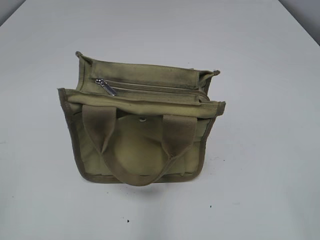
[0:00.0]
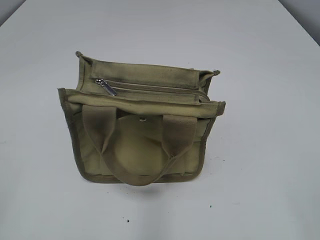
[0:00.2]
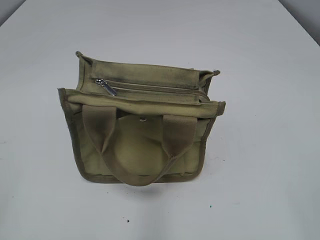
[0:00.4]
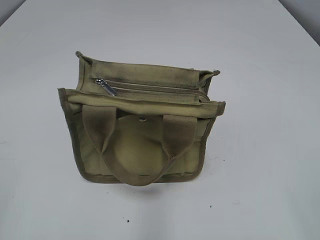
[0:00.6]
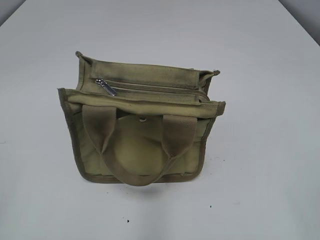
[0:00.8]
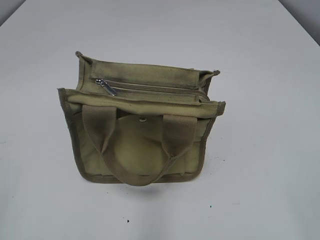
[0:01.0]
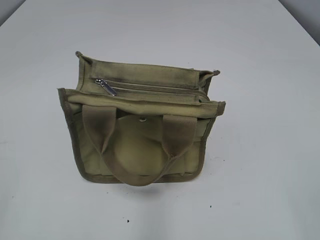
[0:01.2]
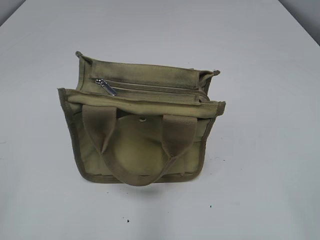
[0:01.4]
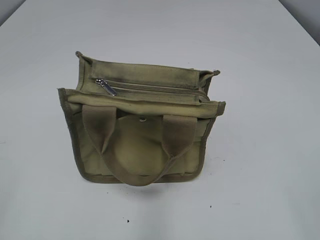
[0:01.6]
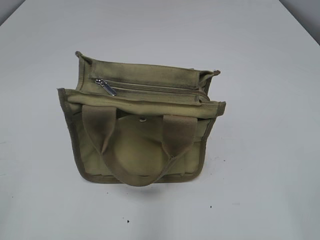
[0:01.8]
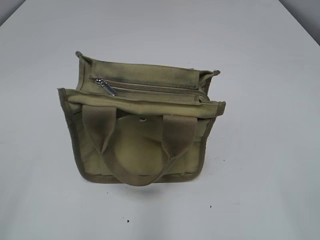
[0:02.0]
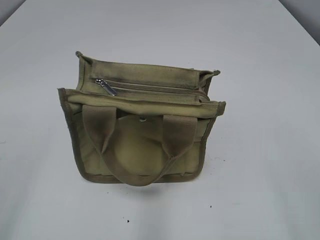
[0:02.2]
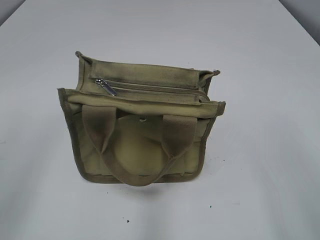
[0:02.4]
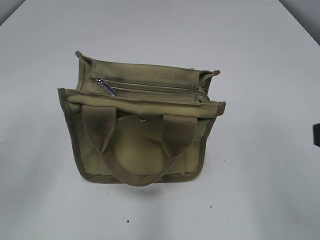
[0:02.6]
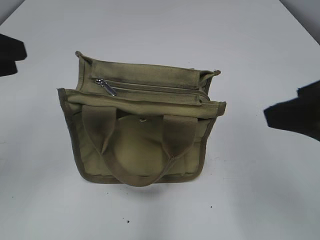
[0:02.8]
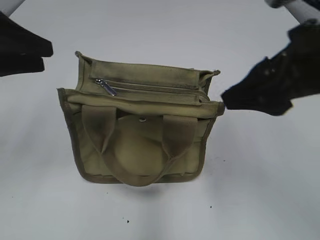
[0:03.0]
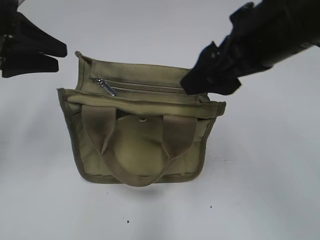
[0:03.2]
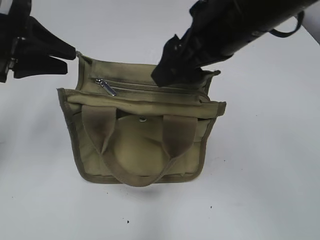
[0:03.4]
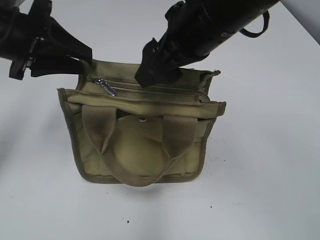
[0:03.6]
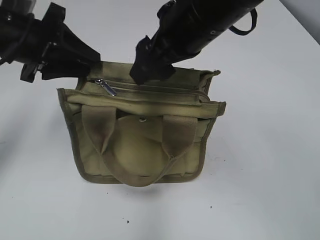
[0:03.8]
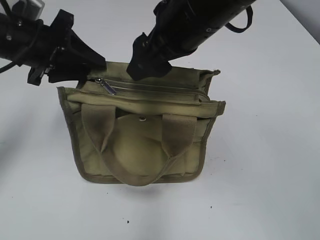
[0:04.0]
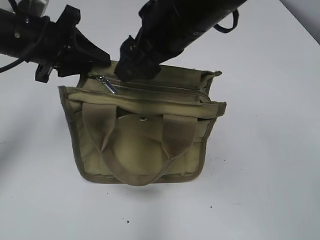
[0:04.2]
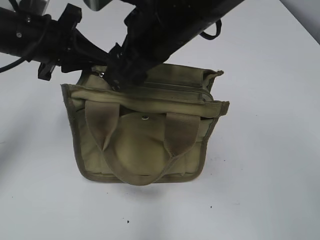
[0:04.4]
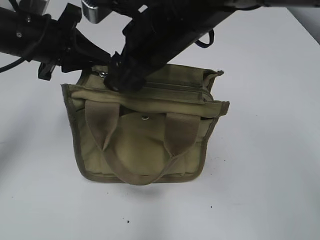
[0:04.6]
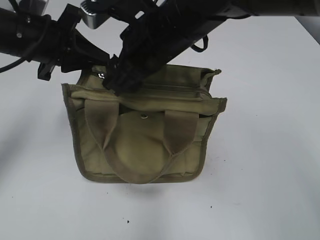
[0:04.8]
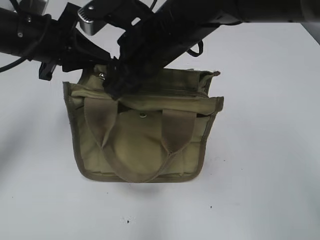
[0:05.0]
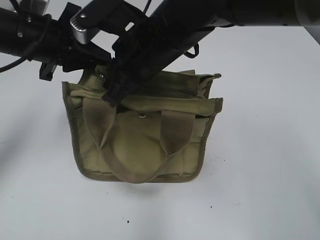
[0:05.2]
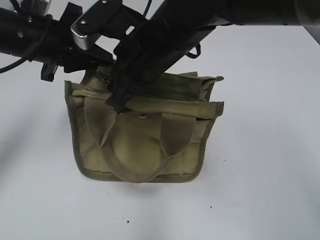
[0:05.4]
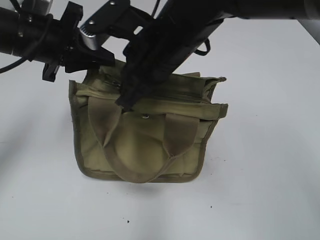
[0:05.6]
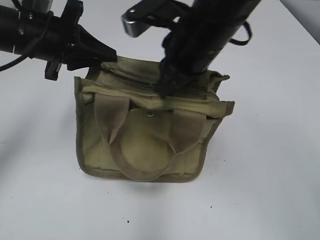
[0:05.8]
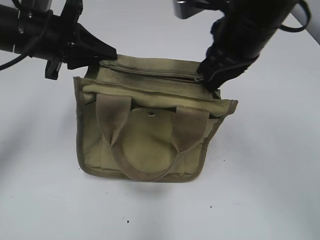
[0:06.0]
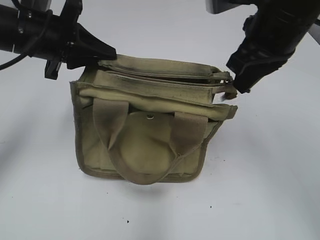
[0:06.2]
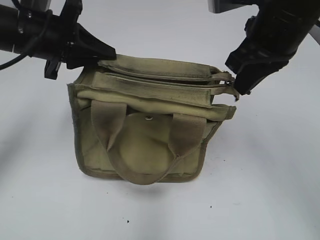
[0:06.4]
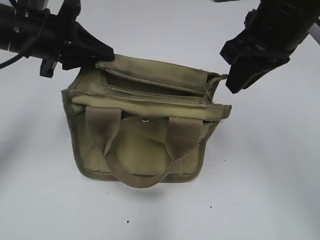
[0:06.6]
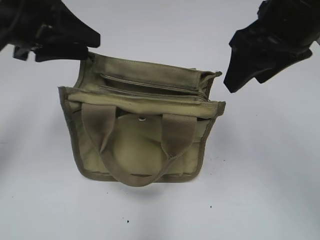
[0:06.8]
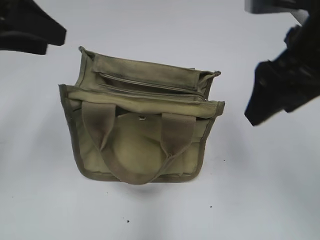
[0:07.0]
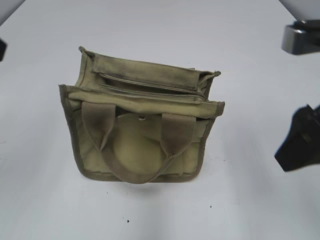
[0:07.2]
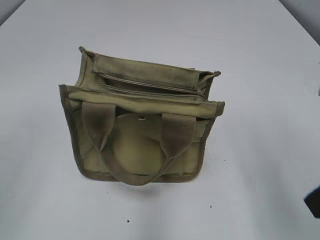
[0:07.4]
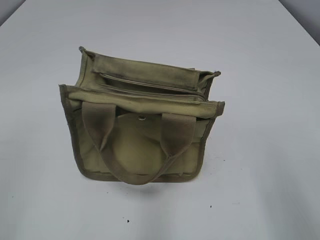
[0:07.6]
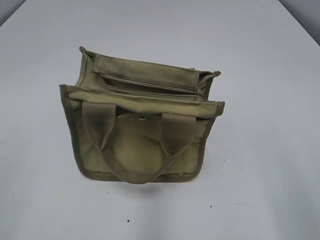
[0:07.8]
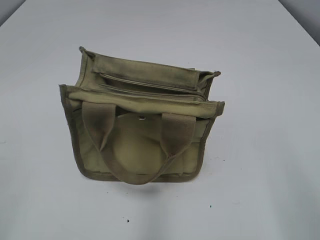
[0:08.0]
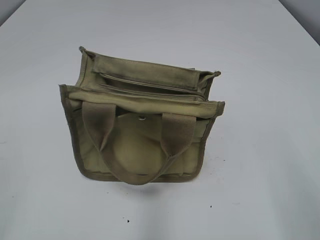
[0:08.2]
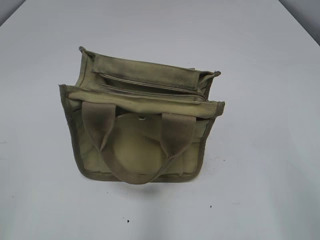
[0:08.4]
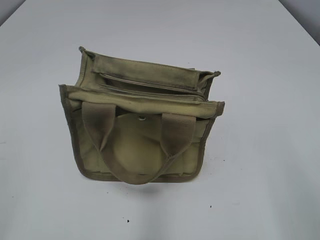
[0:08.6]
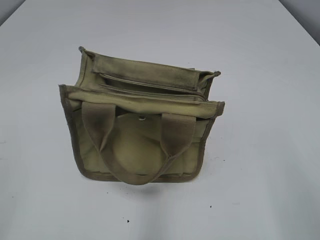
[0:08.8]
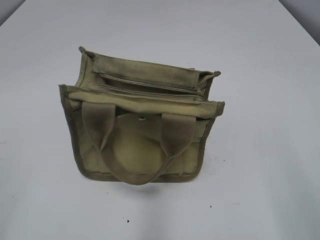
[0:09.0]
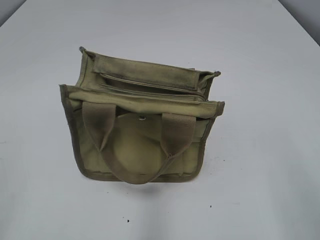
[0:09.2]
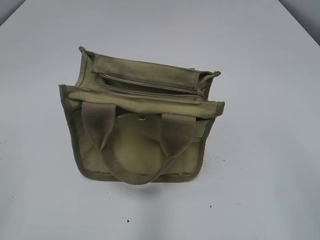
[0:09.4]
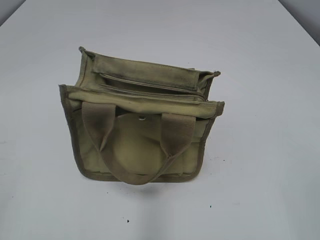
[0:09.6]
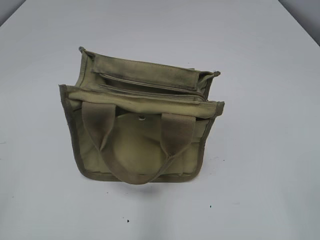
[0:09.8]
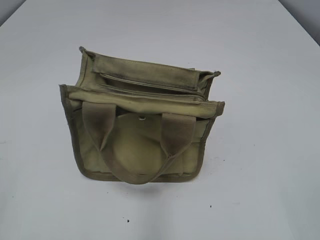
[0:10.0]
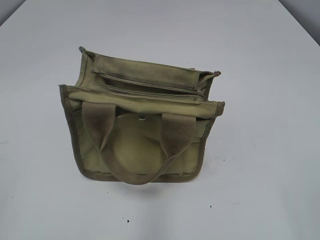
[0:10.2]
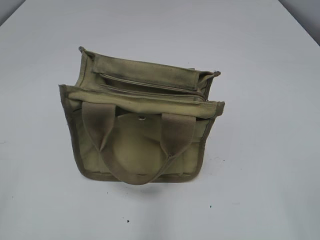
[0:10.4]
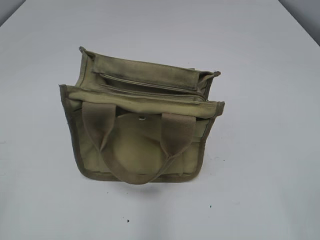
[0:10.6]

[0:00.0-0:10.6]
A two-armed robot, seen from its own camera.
Step, 0:00.0 to 0:06.4: Pull open the zipper with your right hand.
0:01.6 to 0:03.0: The right gripper heads forward and to the left, covering about 25 cm. The left gripper is displaced forward by roughly 25 cm.
0:03.0 to 0:04.6: The left gripper goes approximately 10 cm forward and to the right, and closes its fingers; the right gripper shifts approximately 20 cm to the left and forward.
0:04.6 to 0:06.0: The right gripper goes approximately 10 cm to the right, and closes.
0:06.0 to 0:07.6: The left gripper shifts some 25 cm backward and to the left, and opens up, while the right gripper goes some 25 cm backward and to the right, and opens its fingers.

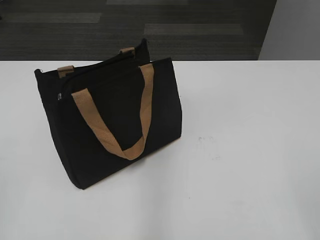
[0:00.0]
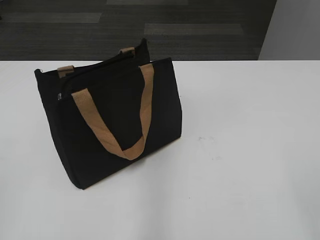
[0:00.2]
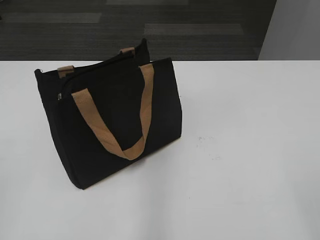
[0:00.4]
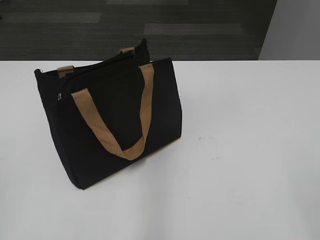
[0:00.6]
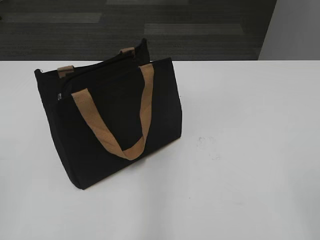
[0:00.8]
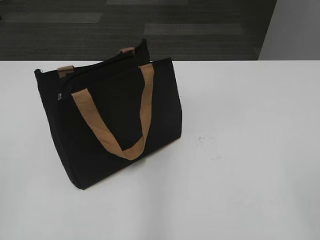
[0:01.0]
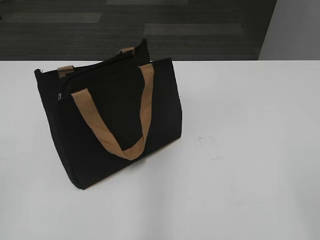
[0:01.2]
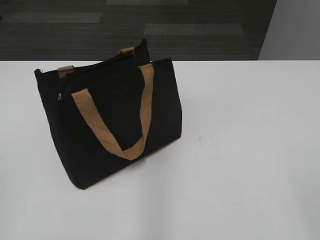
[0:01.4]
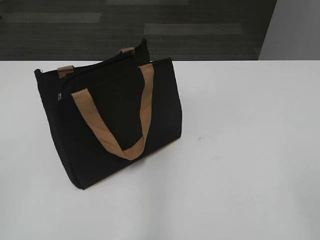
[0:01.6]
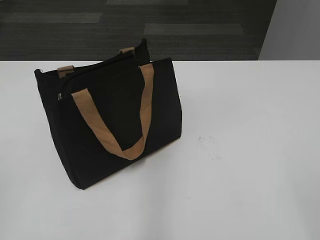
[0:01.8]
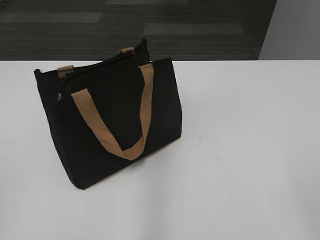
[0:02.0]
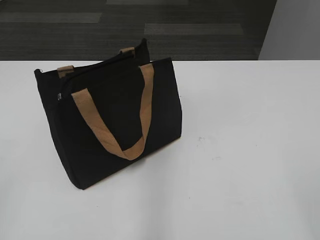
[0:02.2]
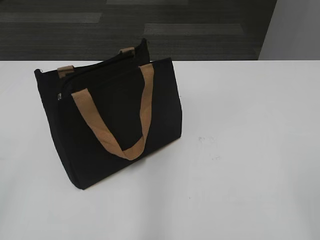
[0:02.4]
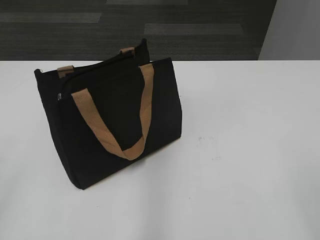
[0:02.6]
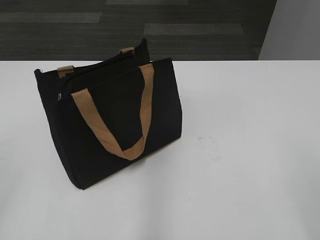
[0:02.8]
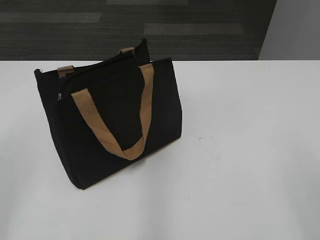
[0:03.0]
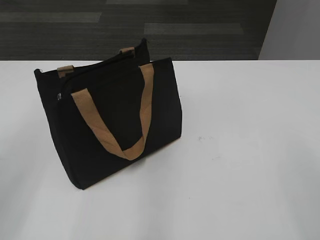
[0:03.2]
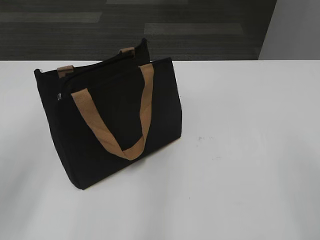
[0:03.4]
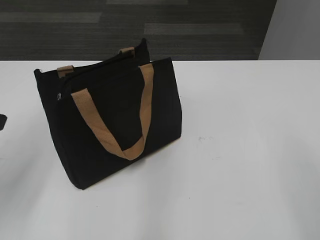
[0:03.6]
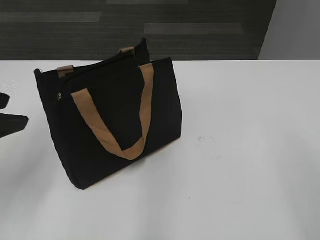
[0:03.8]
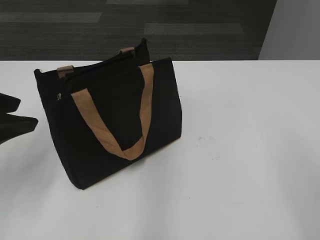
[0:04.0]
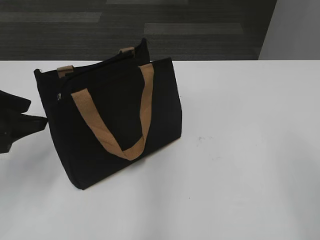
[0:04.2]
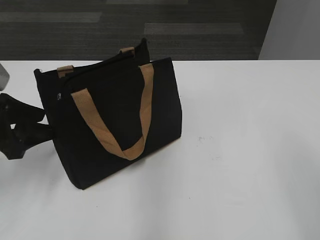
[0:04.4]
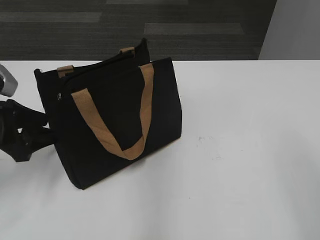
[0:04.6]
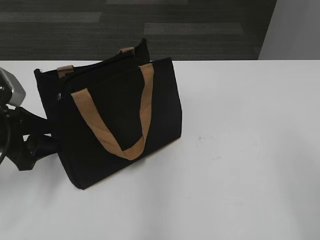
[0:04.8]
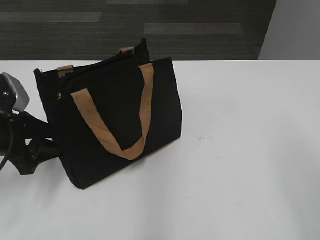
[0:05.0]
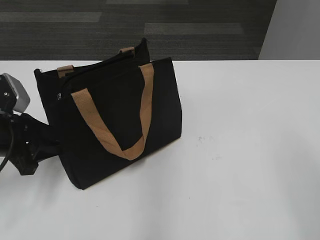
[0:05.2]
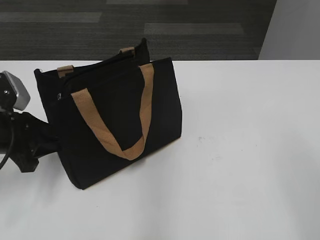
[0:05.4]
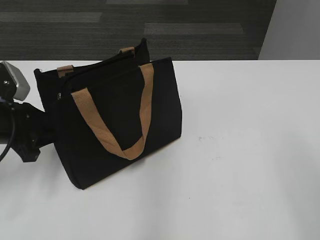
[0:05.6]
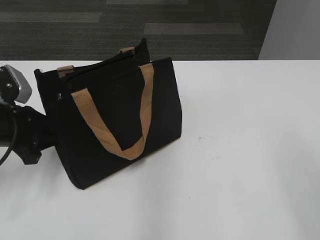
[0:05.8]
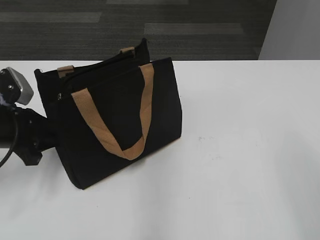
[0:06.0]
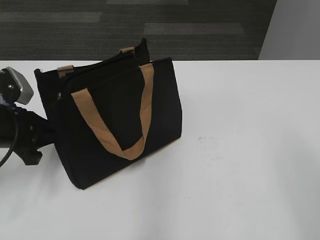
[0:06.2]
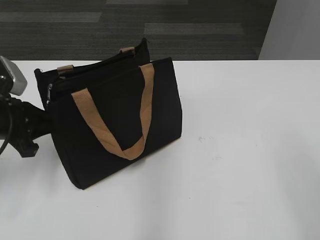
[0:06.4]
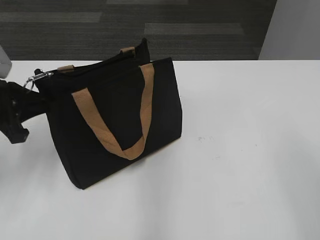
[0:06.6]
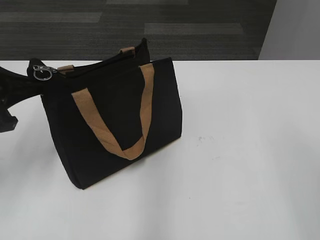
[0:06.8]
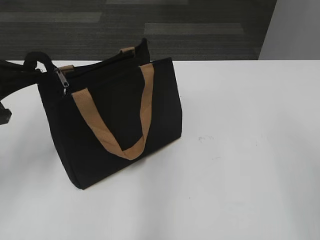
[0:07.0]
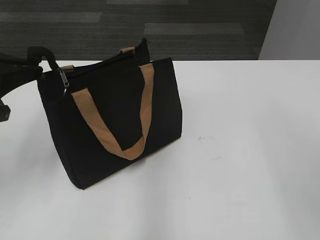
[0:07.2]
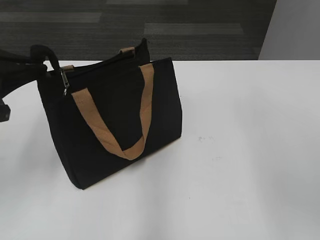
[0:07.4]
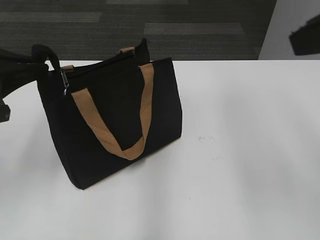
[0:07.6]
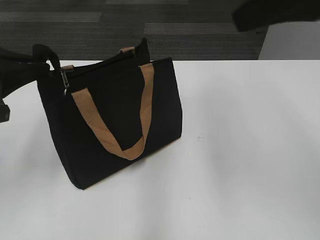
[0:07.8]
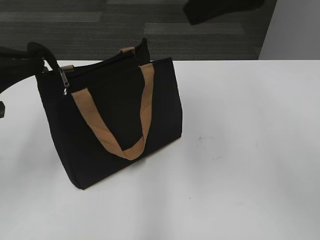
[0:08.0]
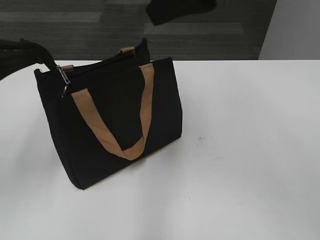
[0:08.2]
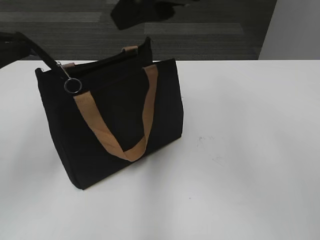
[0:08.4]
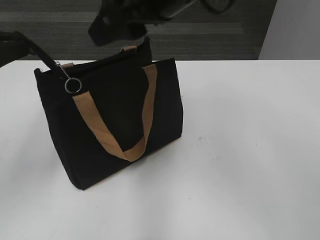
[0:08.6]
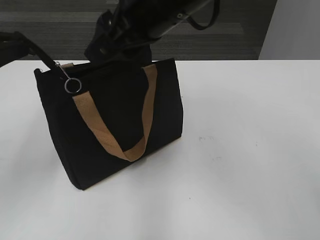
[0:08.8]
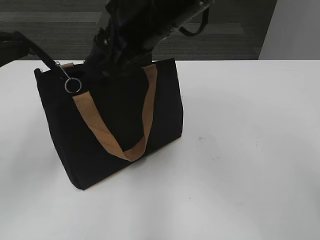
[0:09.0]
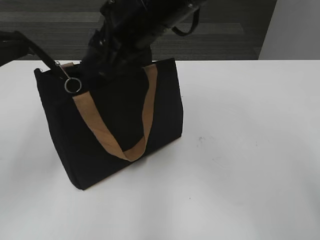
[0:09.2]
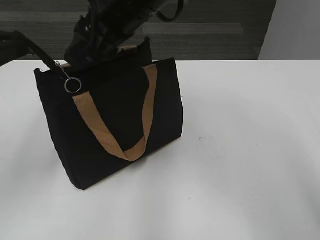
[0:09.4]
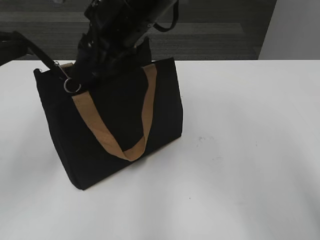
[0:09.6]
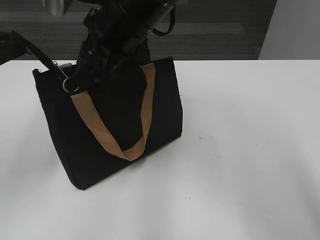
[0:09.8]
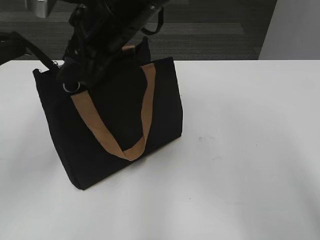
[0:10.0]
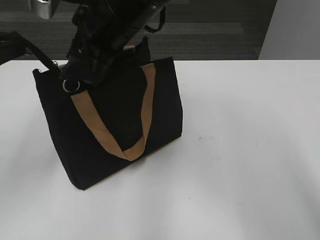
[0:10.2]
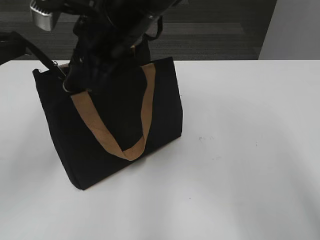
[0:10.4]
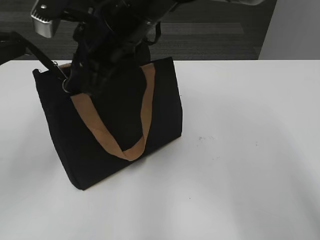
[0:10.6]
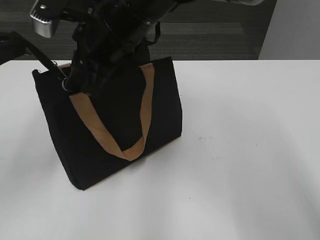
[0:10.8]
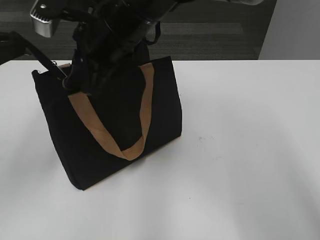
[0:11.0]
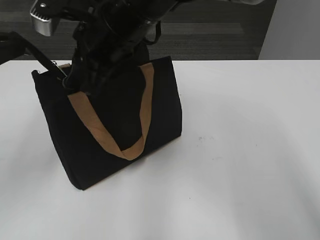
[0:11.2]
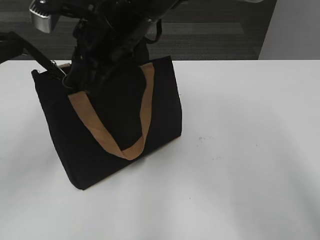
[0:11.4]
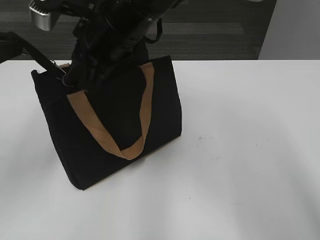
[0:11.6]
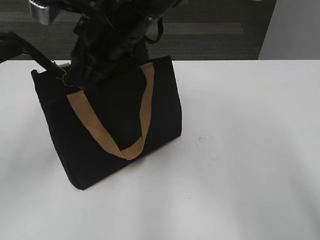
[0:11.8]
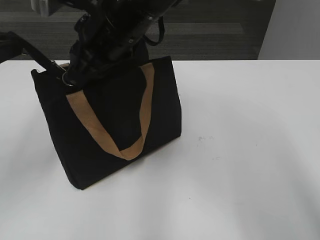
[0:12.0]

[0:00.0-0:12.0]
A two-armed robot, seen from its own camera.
0:03.0 to 0:04.4: The left gripper goes approximately 20 cm forward and downward.
0:04.4 to 0:06.0: The left gripper ends up some 5 cm from where it was, and closes.
0:06.0 to 0:07.6: The right gripper moves forward and upward, approximately 15 cm. Meanwhile the left gripper goes roughly 10 cm upward, and closes its fingers.
0:07.6 to 0:09.0: The right gripper shifts some 25 cm to the left and forward.
0:09.0 to 0:10.4: The right gripper ends up roughly 5 cm from where it was.
0:10.4 to 0:12.0: The right gripper closes its fingers.
